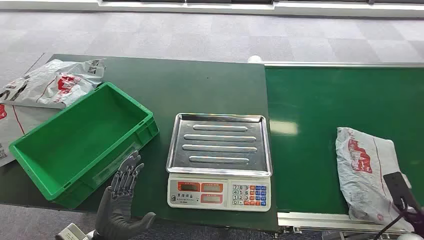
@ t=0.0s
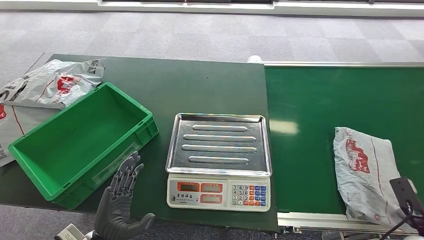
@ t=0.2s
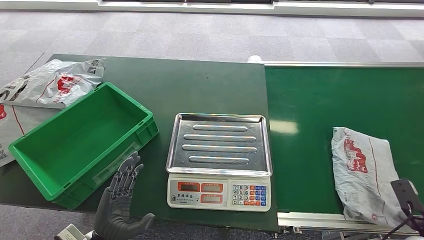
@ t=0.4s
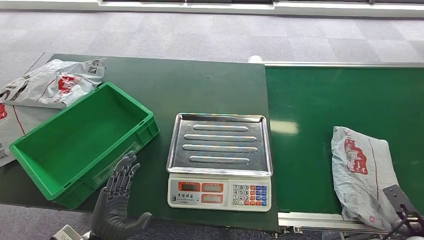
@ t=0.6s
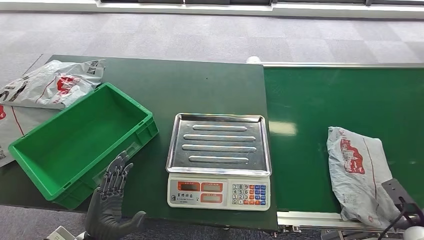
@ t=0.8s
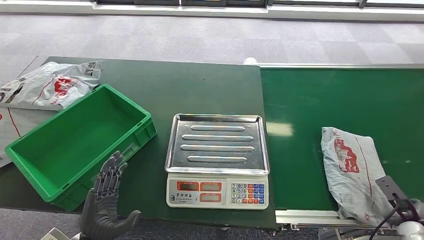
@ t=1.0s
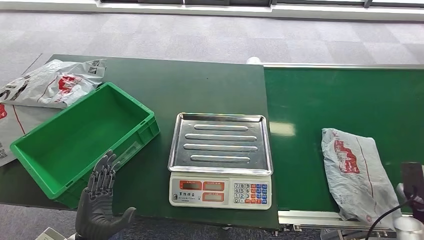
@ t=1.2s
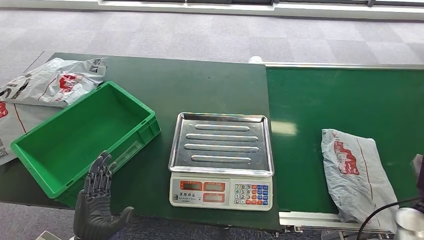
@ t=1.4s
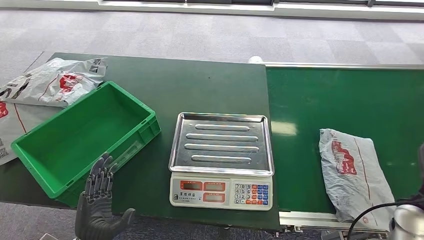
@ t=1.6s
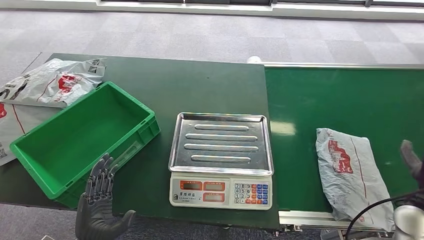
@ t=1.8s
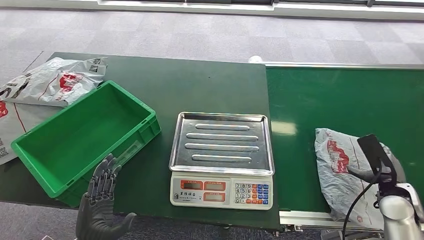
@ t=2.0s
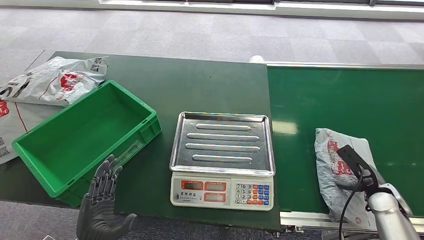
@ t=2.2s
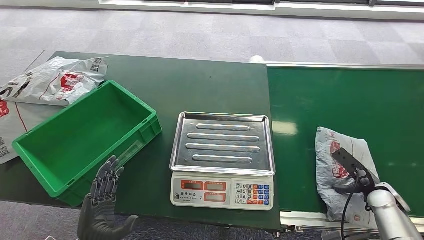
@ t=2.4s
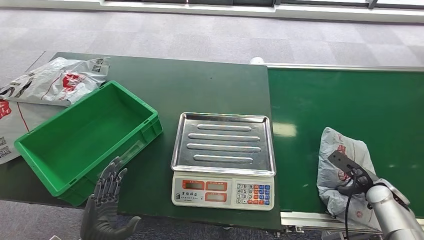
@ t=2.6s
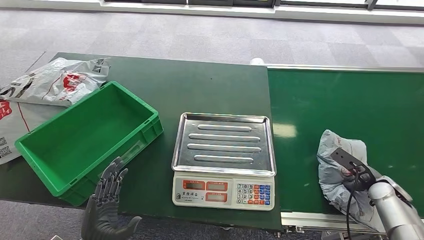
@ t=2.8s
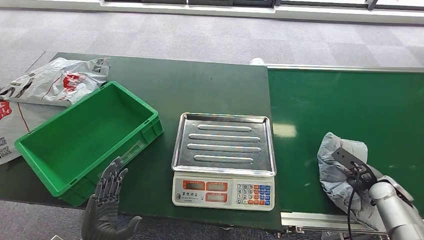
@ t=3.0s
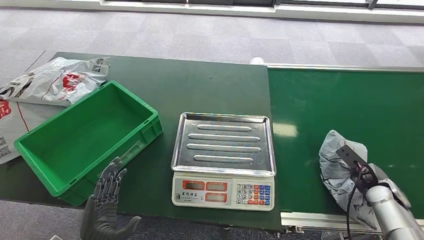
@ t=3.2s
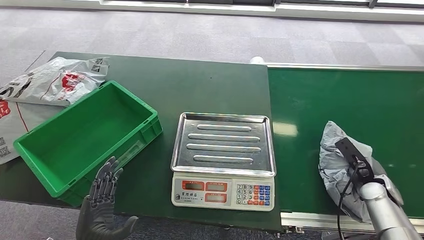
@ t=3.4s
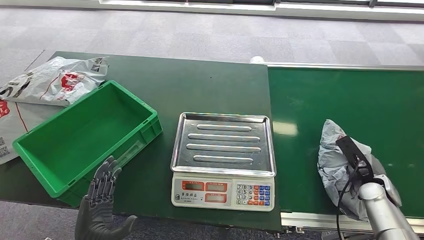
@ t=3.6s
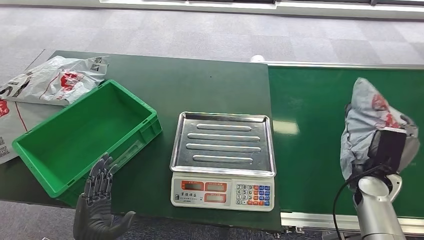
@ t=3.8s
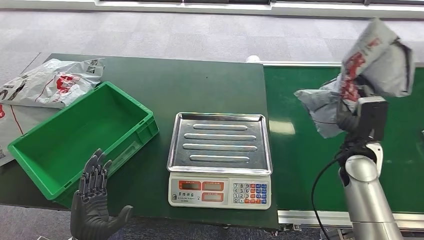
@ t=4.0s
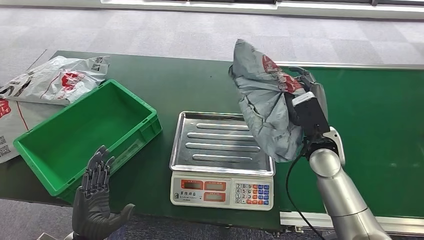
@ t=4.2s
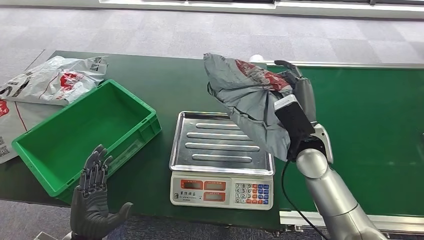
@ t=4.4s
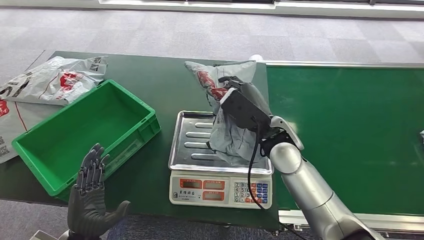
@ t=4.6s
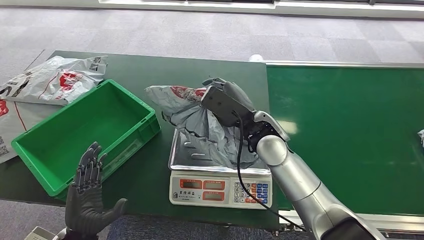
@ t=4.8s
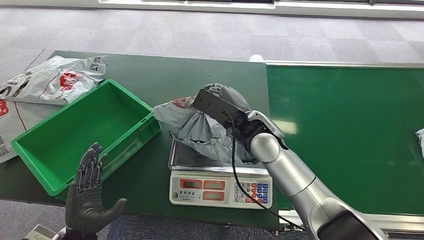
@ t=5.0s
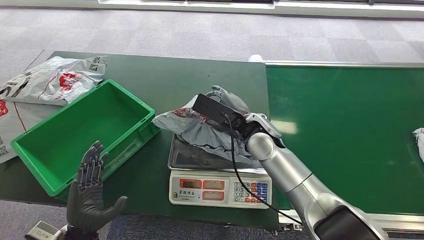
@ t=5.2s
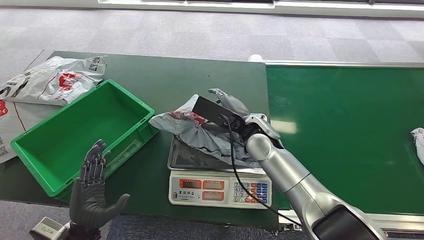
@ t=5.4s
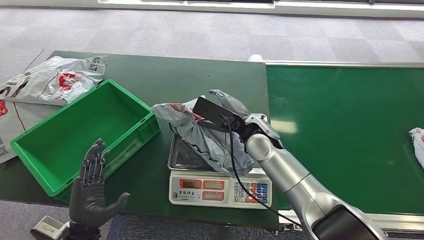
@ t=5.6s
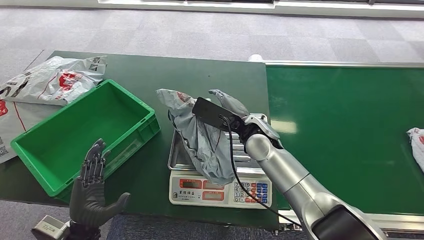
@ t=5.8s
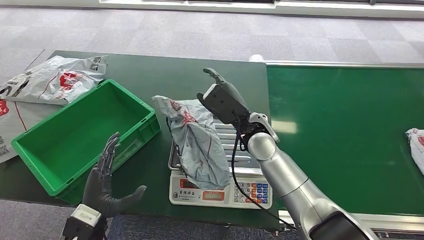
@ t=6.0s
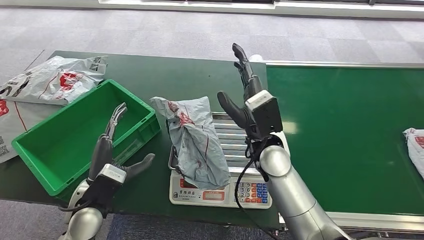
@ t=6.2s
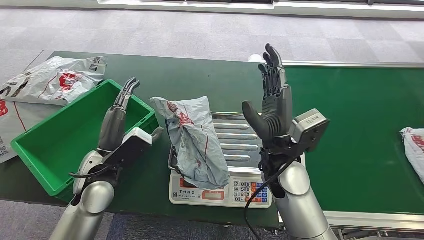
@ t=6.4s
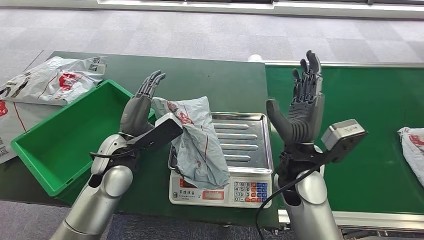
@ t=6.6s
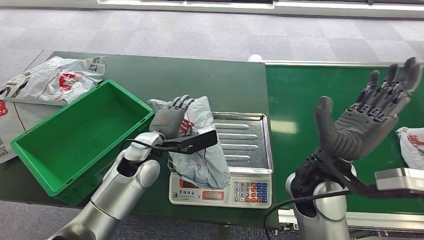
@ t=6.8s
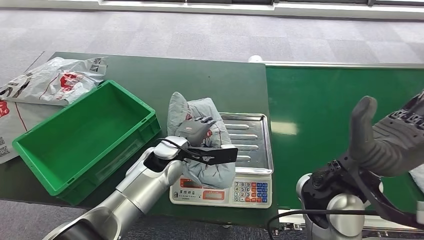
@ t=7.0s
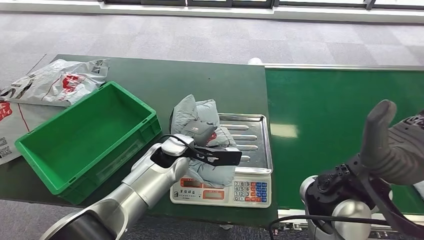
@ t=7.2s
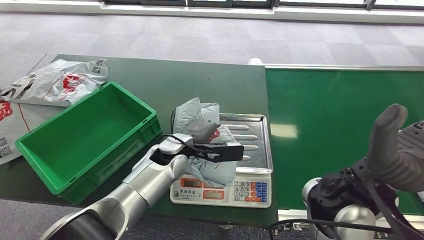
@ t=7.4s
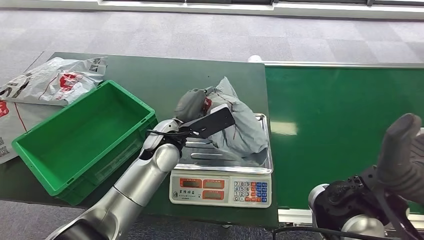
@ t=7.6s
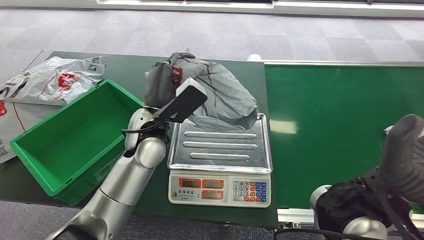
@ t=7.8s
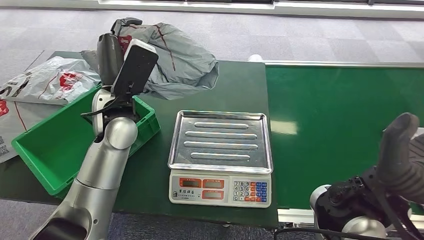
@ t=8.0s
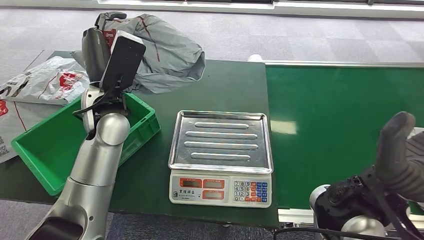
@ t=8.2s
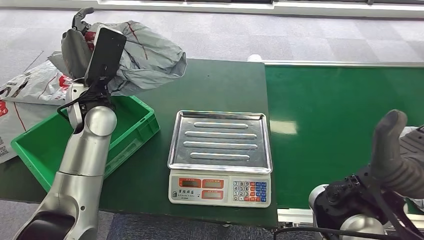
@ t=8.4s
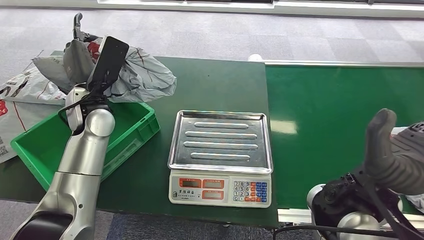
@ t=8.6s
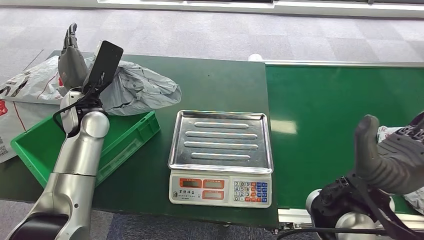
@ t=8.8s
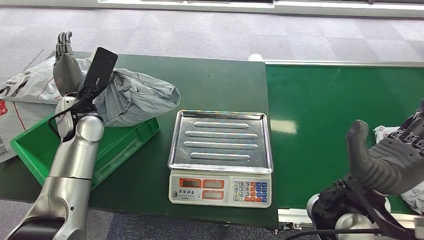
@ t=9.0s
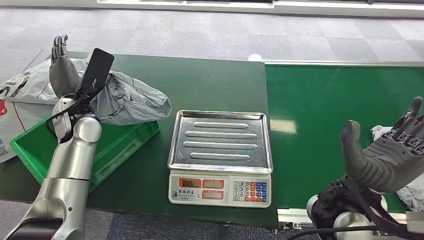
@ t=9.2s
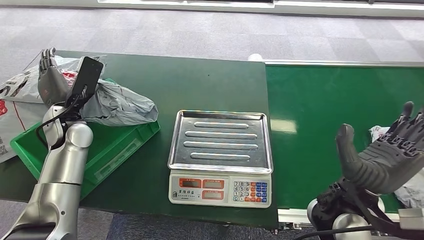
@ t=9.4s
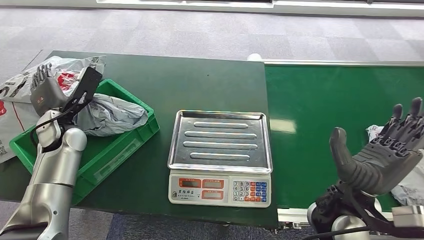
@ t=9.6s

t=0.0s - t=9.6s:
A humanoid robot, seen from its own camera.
Step, t=0.0s - t=4.2s: Pick up the package from the conveyor belt.
Step, t=4.4s - t=5.4s: Place the package onto the inbound machine.
Step, t=5.6s - t=7.8s: Pick up the package from the inbound machine.
Step, t=8.4s - t=9.6s: Place the package into the parcel locker.
t=1.6s - t=3.2s: The right hand heads downward and forward, covering some 10 cm.

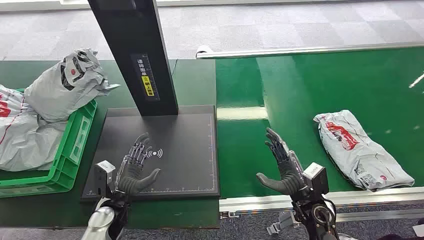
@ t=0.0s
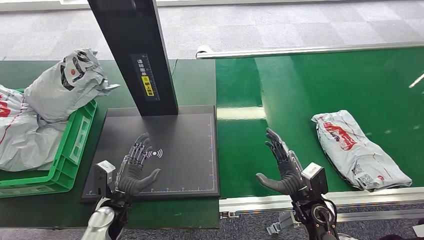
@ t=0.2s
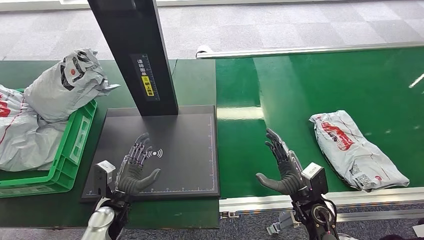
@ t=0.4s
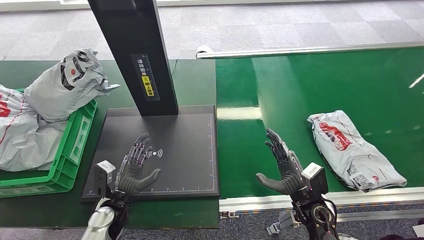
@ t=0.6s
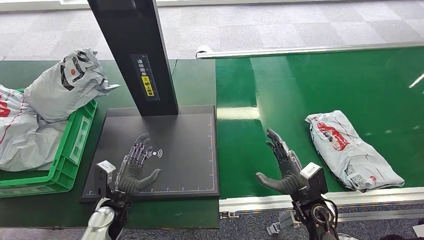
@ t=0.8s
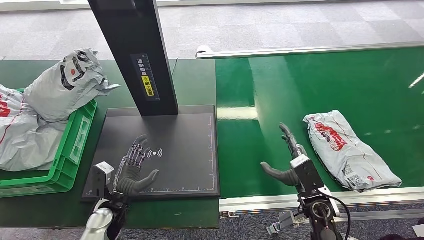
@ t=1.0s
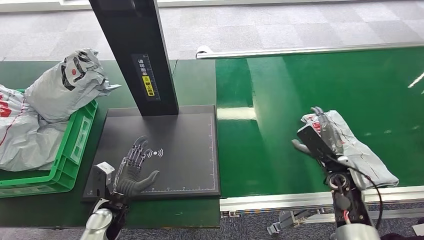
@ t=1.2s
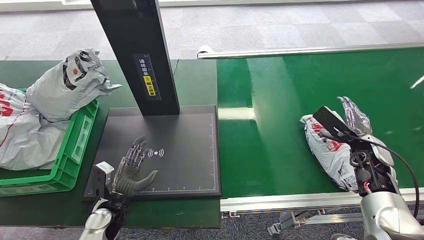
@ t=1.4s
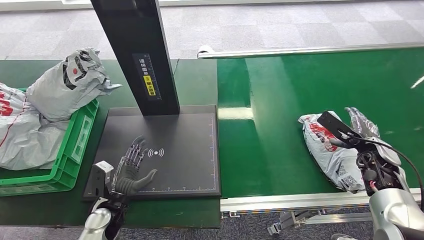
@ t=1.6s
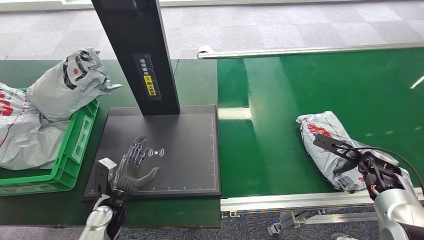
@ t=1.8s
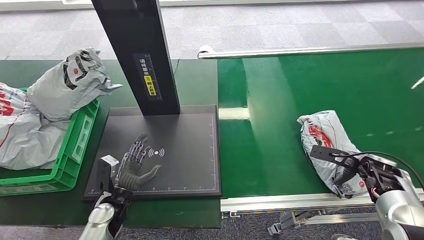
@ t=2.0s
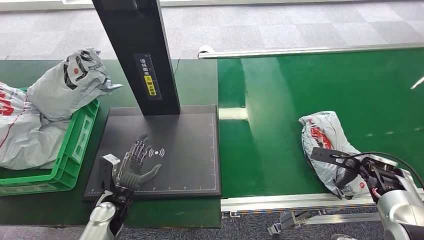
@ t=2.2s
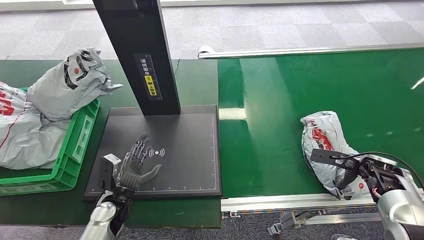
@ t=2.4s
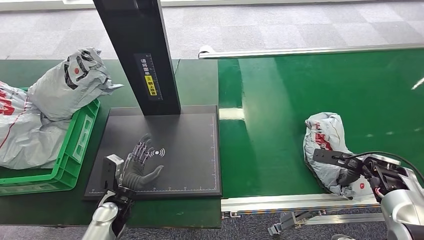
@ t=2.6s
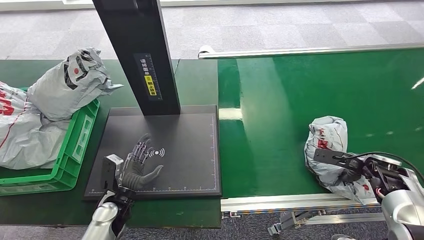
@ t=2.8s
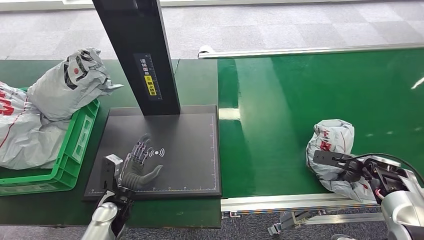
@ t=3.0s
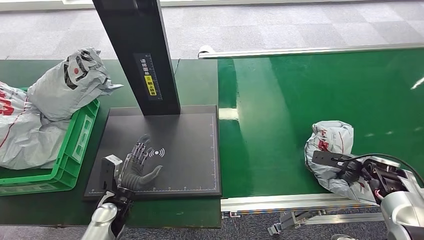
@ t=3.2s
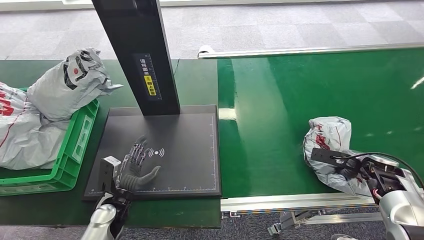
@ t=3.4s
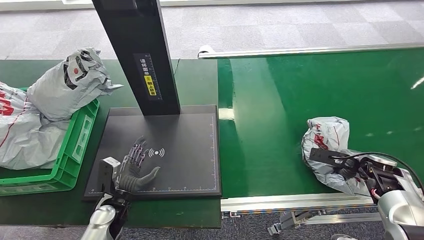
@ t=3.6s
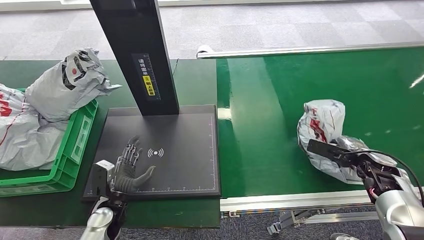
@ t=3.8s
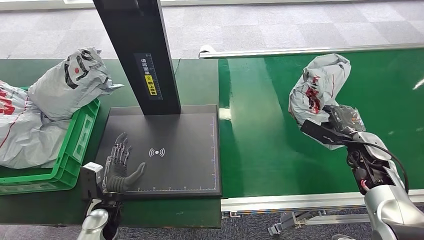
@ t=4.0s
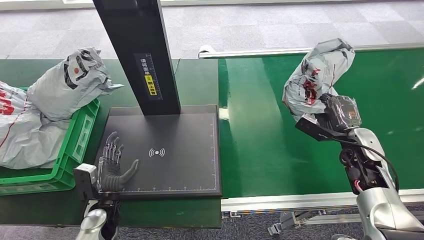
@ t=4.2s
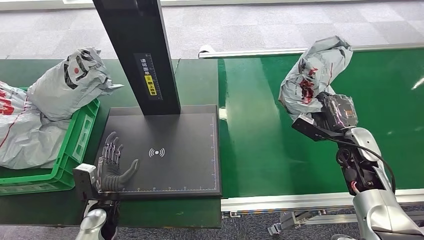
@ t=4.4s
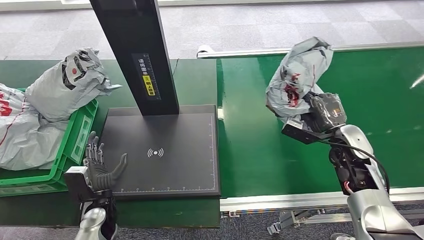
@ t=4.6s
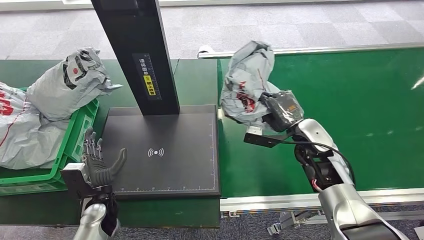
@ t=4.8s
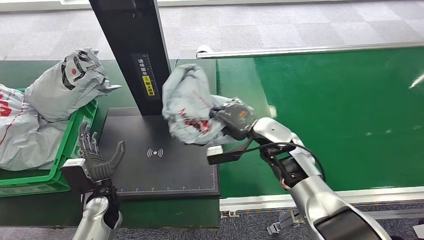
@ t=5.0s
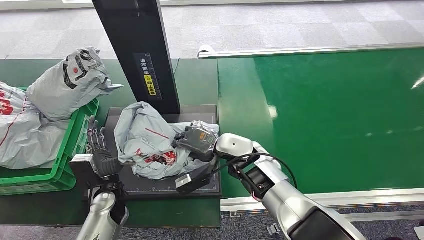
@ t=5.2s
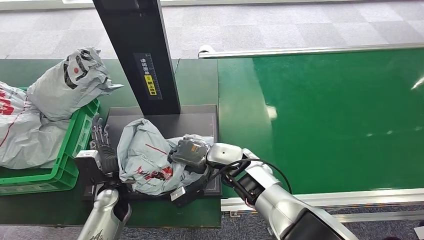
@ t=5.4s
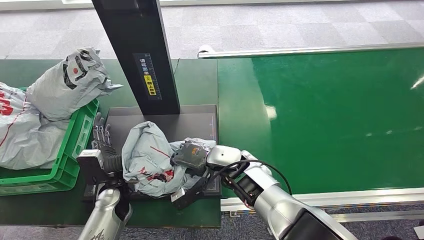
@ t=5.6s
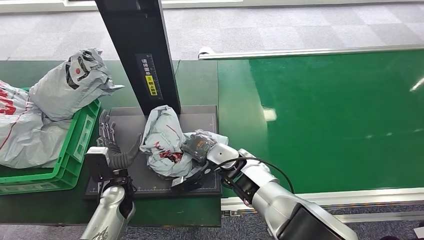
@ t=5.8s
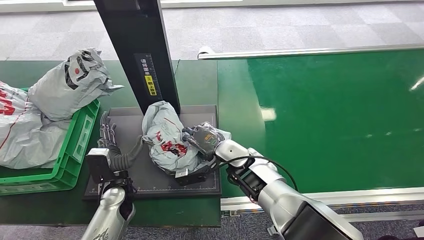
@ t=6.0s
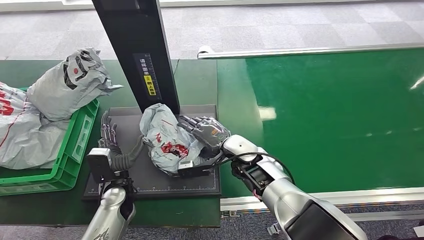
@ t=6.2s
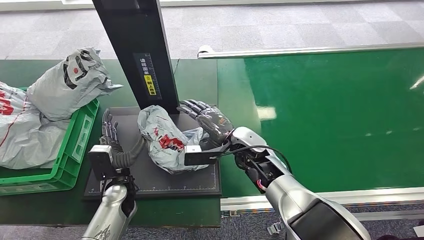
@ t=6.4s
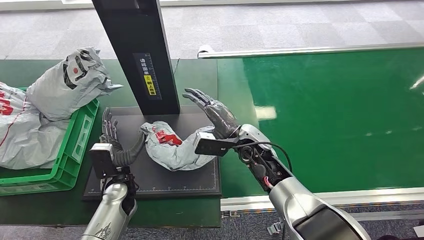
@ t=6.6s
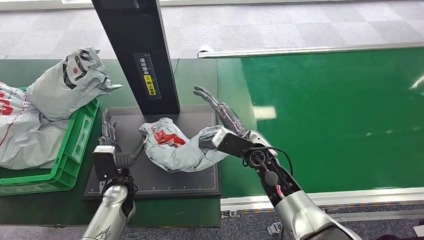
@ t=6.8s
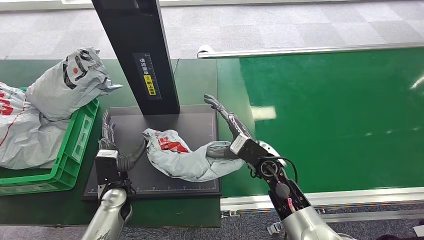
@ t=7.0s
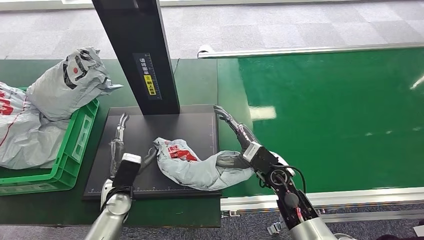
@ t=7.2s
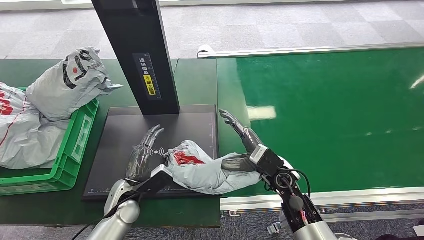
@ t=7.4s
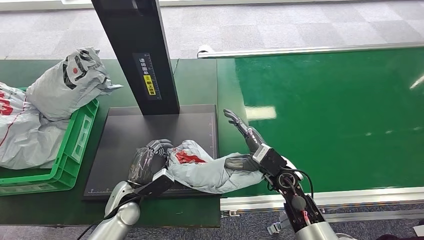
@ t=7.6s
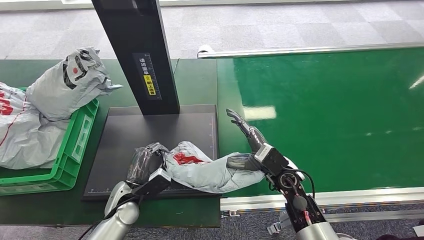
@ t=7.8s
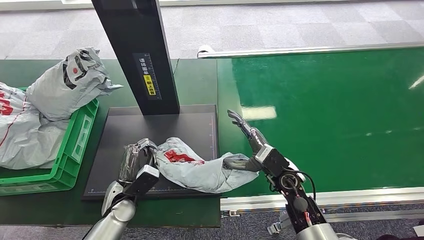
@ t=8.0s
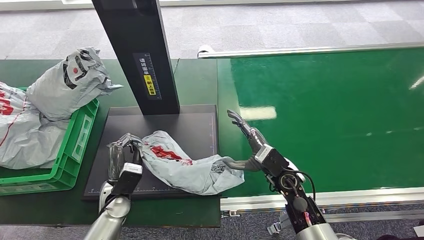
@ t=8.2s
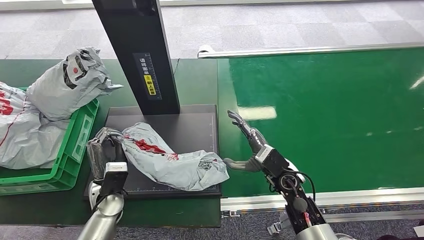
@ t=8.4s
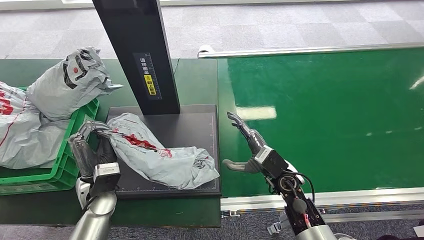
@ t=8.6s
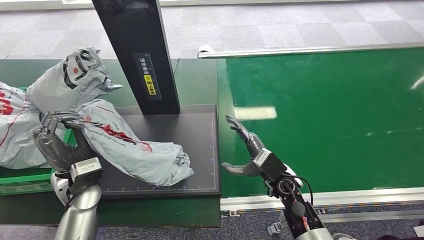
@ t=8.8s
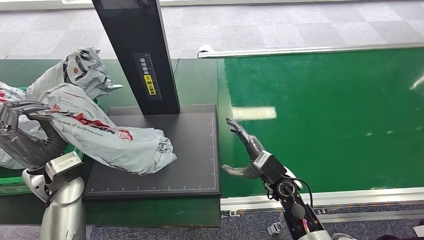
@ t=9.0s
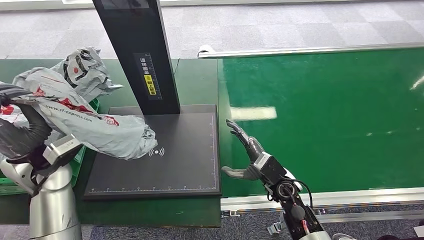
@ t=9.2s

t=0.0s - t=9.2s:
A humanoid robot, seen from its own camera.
Step, t=0.0s - t=4.8s: Pick up the package from the conveyor belt.
Step, t=5.2s - t=7.6s: Place the package onto the inbound machine.
t=6.2s - t=7.6s: The right hand goes approximately 10 cm to the right.
